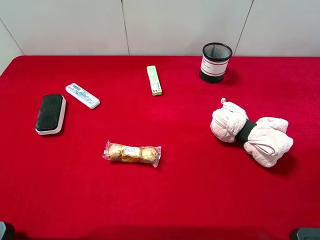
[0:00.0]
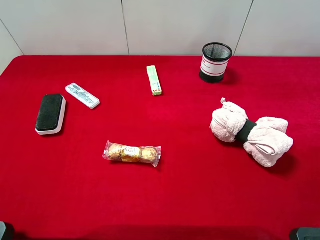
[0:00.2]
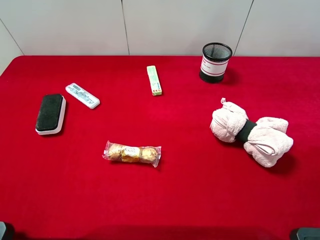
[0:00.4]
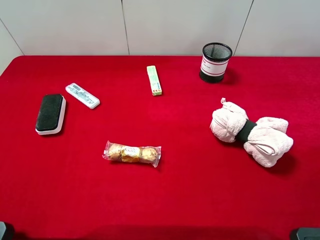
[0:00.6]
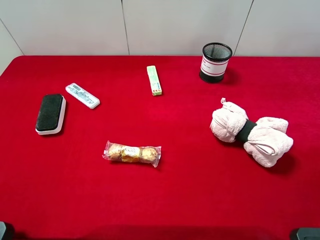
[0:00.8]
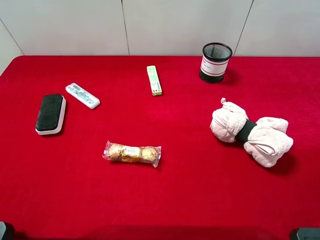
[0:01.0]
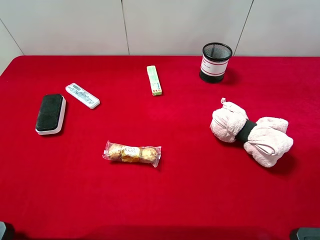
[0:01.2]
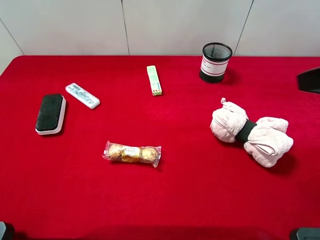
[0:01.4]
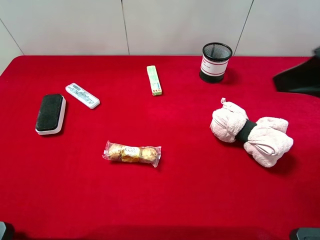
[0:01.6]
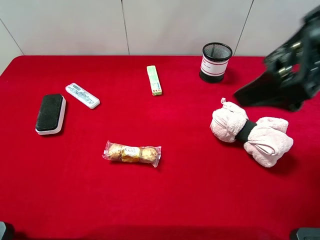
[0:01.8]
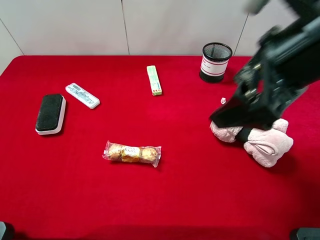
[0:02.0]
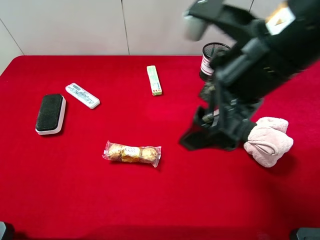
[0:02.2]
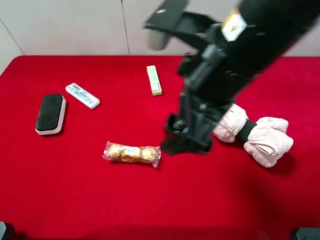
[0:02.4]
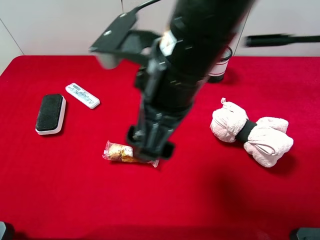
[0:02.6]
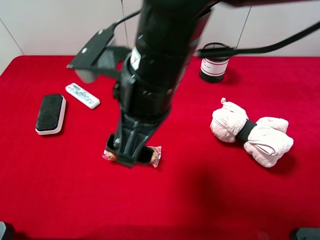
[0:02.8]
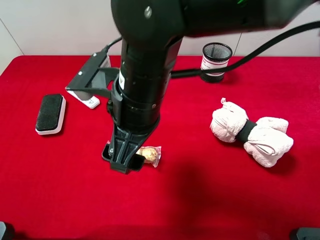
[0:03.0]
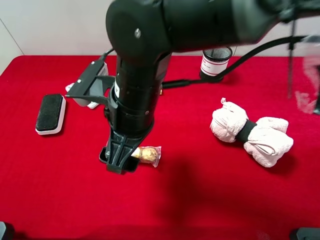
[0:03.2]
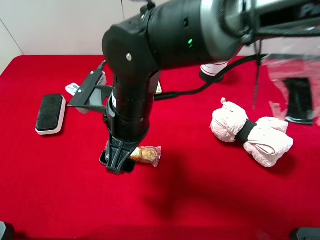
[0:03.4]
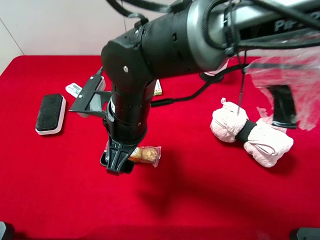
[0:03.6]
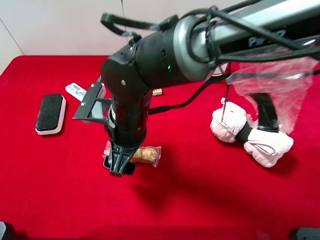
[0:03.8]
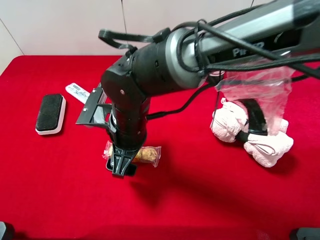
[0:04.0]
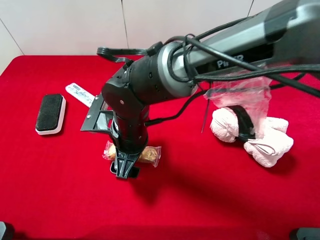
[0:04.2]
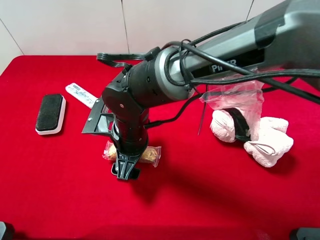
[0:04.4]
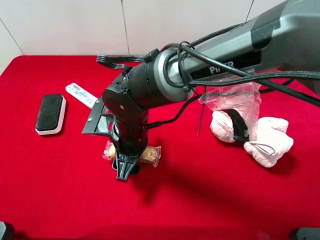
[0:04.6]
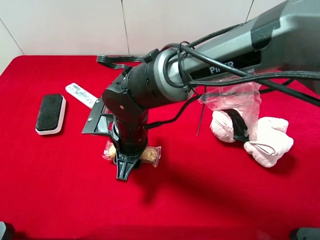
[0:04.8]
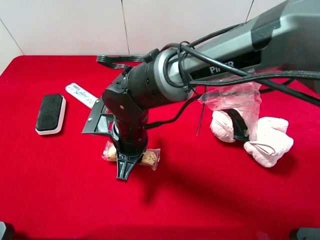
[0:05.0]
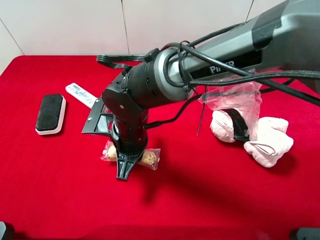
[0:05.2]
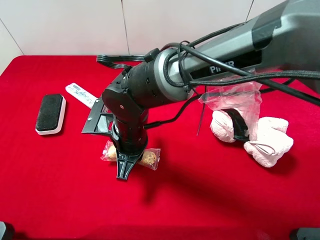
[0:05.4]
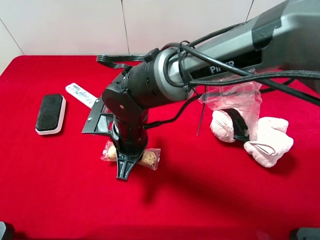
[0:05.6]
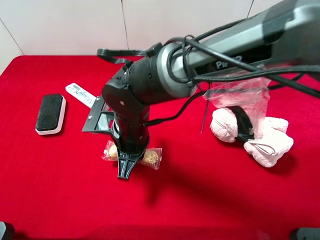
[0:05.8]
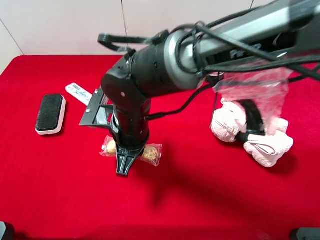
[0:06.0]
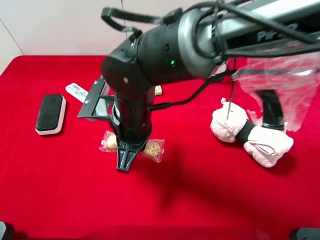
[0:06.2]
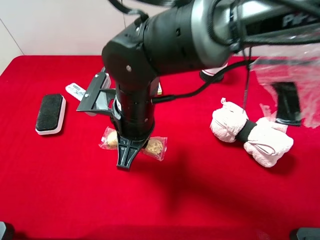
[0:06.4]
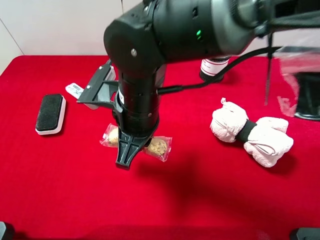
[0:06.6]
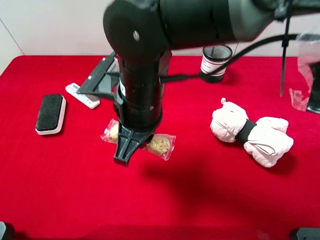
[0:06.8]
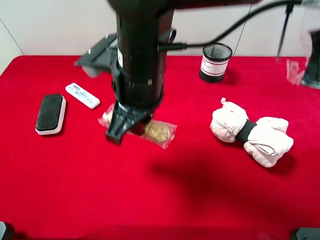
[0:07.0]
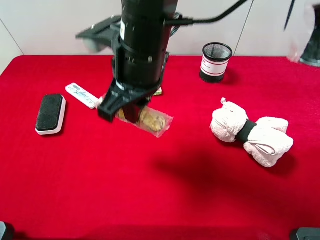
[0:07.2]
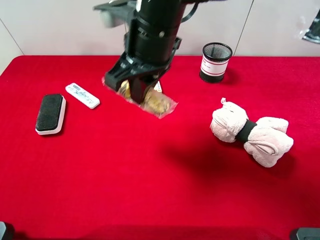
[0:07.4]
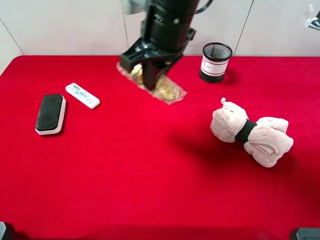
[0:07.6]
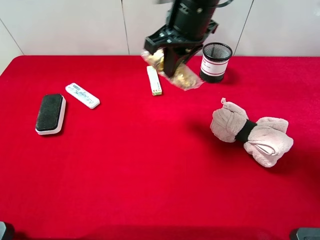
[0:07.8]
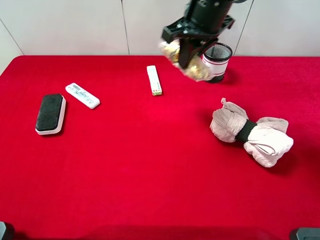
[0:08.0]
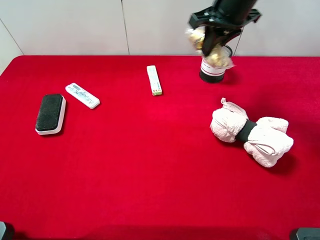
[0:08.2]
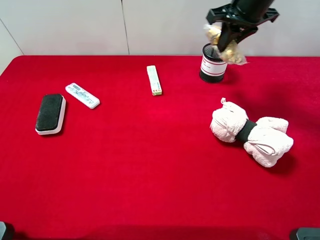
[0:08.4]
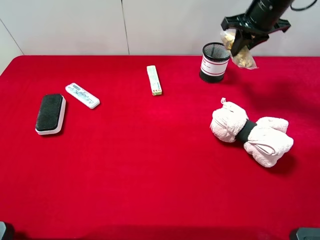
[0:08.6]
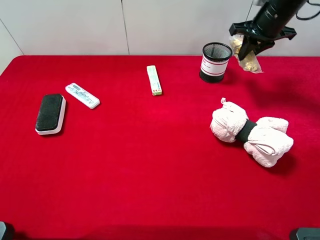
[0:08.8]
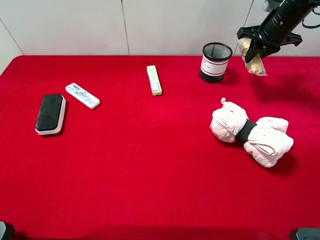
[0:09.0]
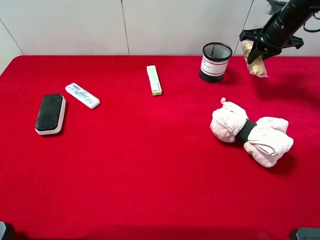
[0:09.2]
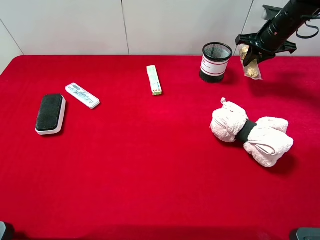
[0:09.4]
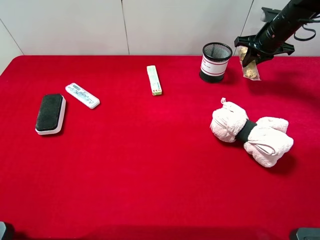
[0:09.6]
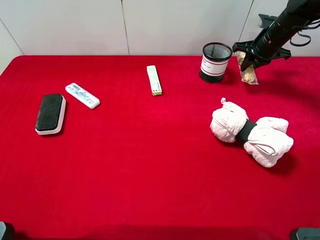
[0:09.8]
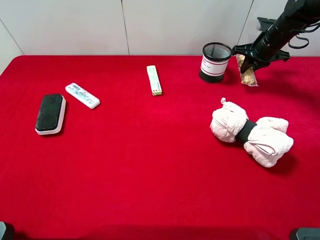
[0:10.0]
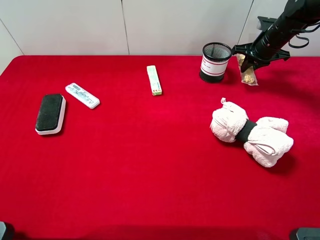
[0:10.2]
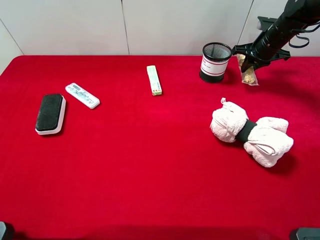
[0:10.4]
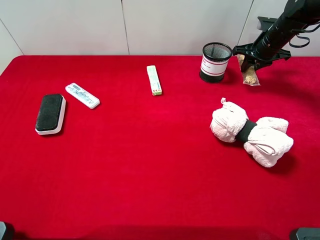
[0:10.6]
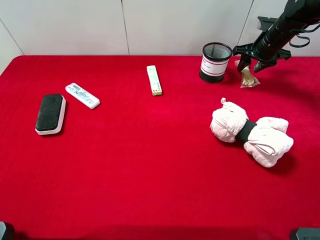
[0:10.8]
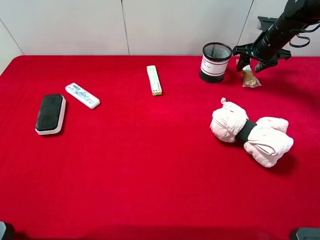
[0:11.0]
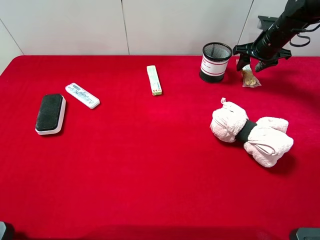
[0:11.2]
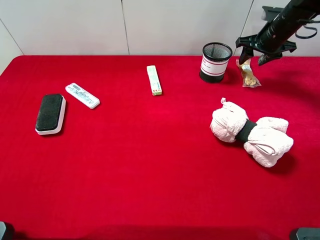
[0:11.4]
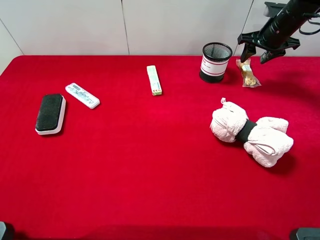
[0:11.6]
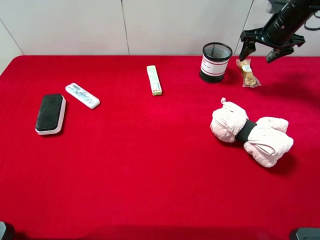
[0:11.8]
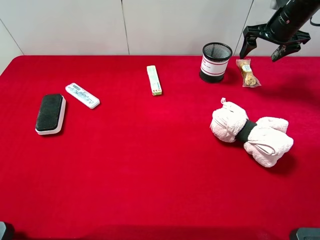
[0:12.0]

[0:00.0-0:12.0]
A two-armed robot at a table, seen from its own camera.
Task of the whole recording: the gripper move the object.
Step, 0:00.0 to 0:05.0: Grasp the chocolate with the right gripper.
Step, 0:05.2 to 0:11.6: Place the chocolate on the table with the right gripper.
0:00.0 to 0:01.6: The right gripper shifts roughly 15 cm forward and to the left.
0:01.6 to 0:03.0: The right gripper travels to the left and downward by about 30 cm.
0:03.0 to 0:04.4: The right gripper shifts about 10 cm downward.
0:04.4 to 0:06.0: The right gripper closes its fingers.
0:06.0 to 0:07.6: The right gripper travels upward, forward and to the right by some 20 cm.
0:07.6 to 0:09.0: The right gripper is displaced to the right and forward by approximately 30 cm.
0:09.0 to 0:10.4: The right gripper travels downward by some 5 cm.
0:10.4 to 0:12.0: The right gripper travels upward by approximately 5 cm, and opens.

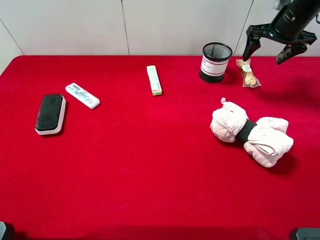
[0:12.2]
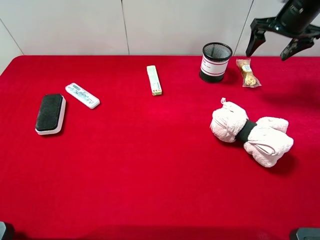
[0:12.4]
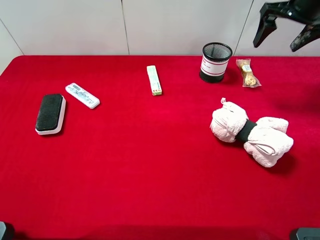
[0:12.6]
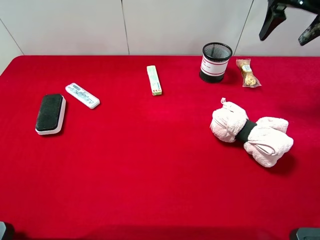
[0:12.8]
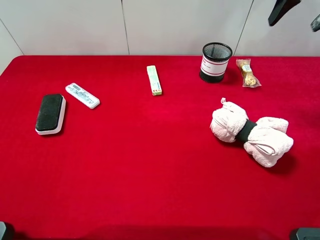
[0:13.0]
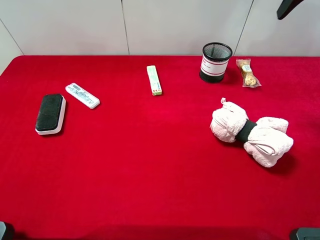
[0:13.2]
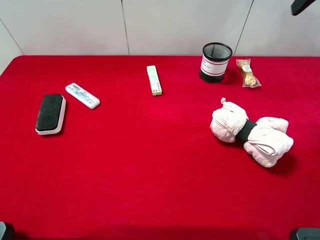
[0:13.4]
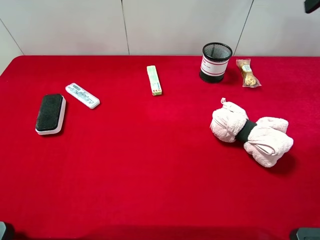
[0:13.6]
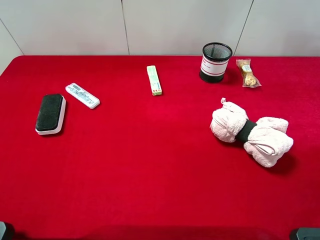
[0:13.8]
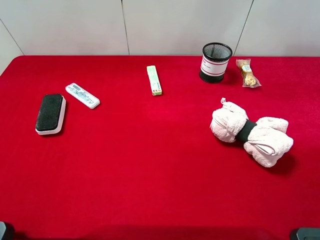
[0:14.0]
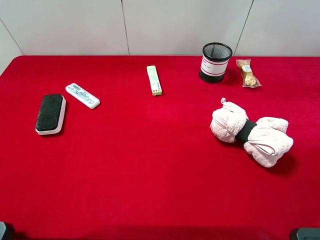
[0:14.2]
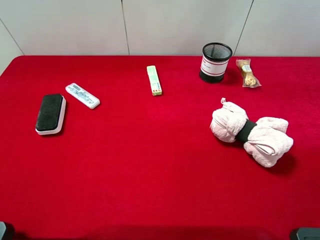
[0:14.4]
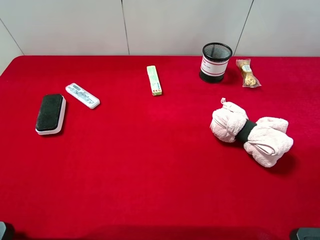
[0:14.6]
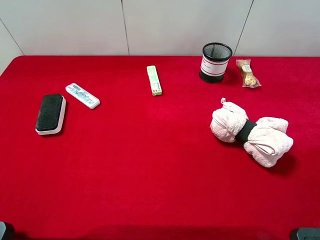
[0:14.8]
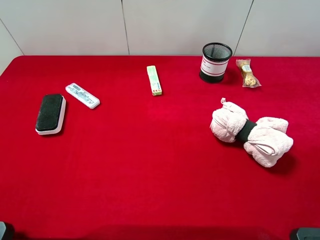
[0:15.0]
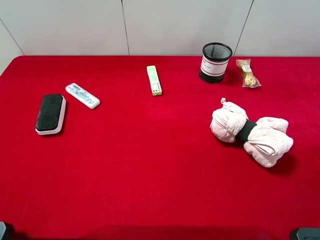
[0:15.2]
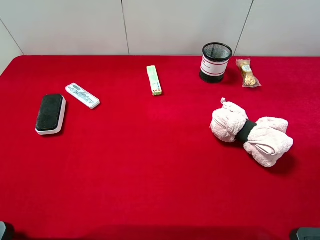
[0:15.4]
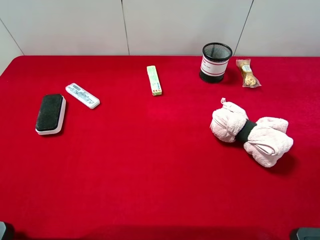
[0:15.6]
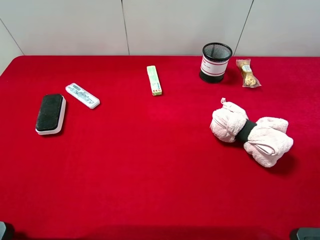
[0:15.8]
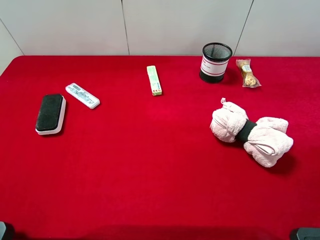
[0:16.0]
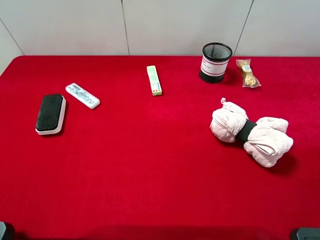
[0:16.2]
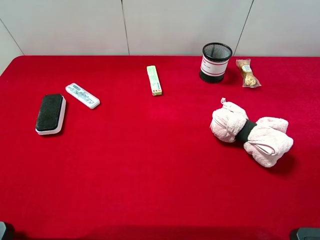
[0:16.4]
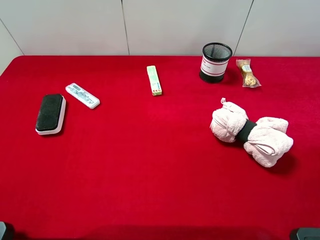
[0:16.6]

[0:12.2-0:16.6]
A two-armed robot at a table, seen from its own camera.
Task of the whole recording: the gripper move the object.
0:12.2 to 0:13.6: The right gripper travels backward and upward by some 25 cm.

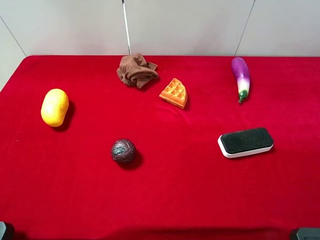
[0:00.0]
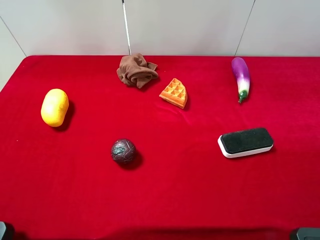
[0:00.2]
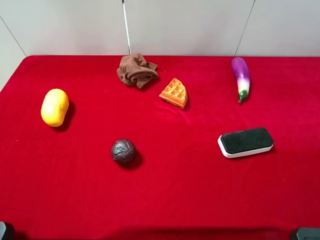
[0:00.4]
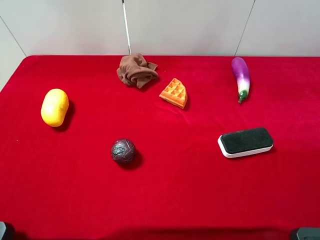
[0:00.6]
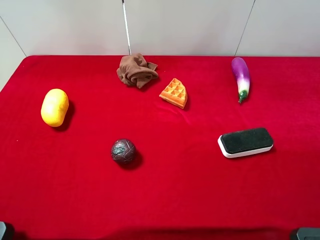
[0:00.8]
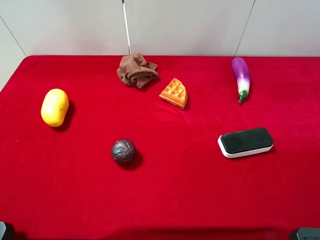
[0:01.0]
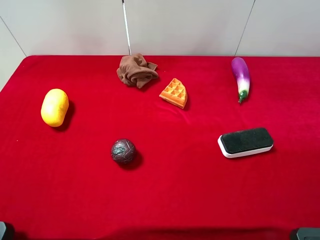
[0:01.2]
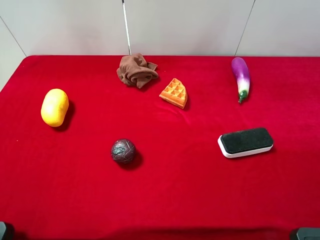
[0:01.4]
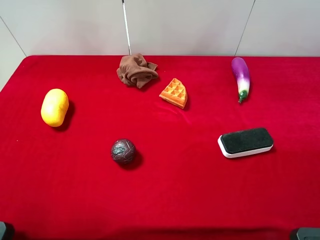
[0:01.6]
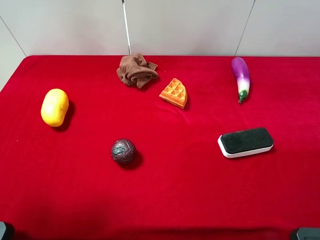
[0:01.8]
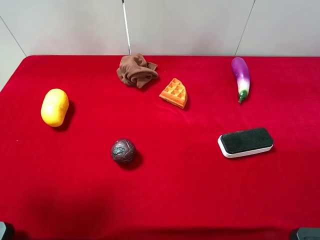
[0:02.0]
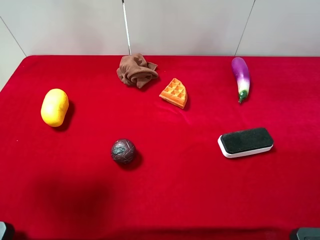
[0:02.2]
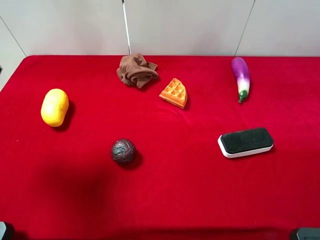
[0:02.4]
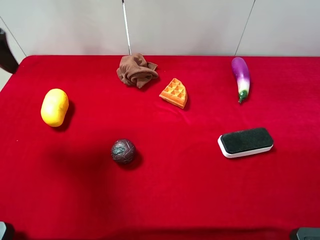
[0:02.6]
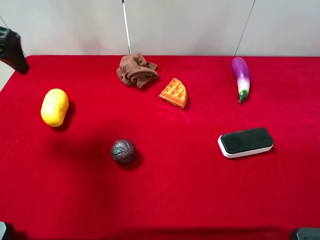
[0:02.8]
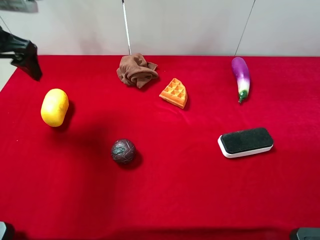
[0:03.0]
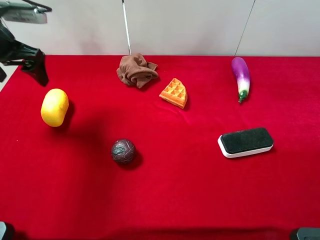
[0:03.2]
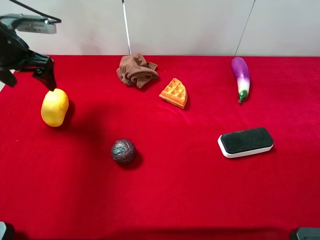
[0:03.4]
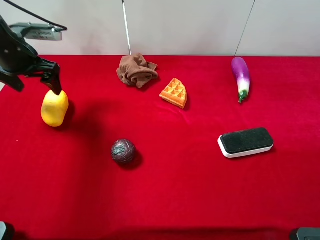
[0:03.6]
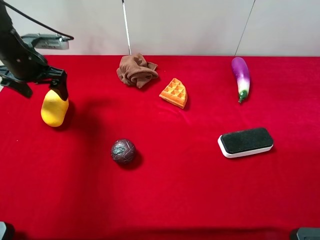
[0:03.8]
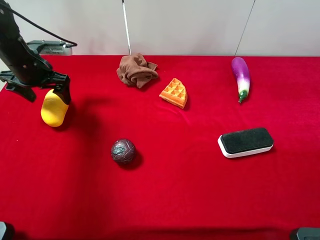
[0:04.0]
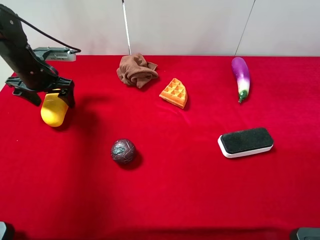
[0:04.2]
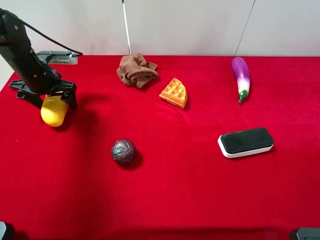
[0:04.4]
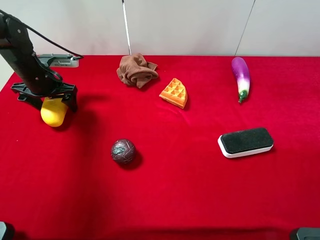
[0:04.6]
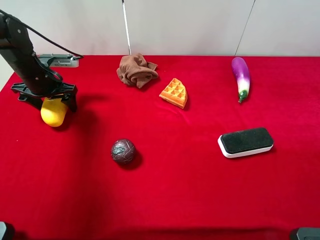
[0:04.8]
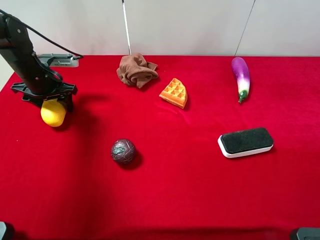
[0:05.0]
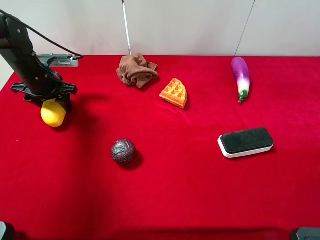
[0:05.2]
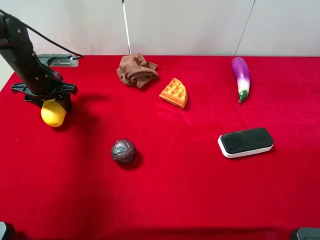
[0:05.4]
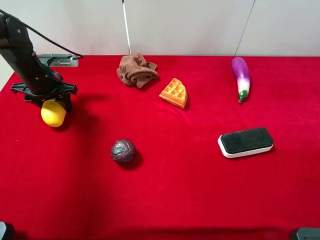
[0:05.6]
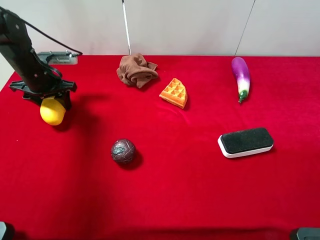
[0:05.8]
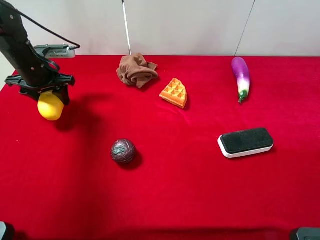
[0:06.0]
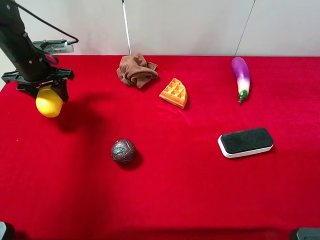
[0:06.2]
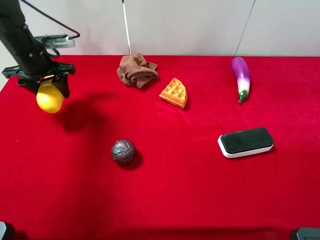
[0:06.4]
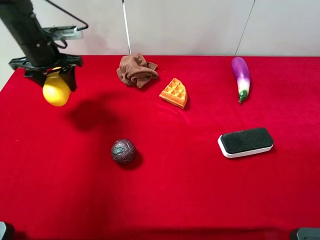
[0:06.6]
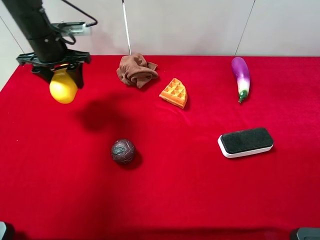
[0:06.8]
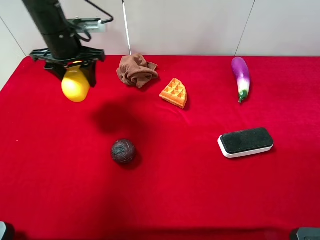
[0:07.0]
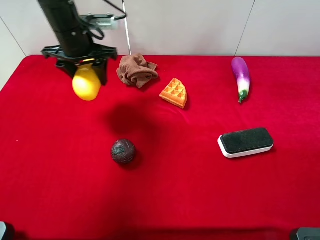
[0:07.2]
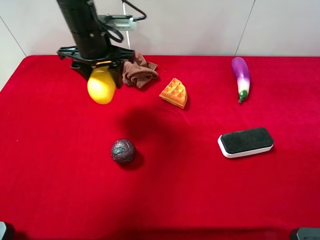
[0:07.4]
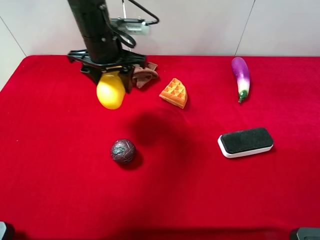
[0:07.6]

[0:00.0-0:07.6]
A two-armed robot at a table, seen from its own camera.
Task of the whole recording: the gripper move the object.
Step, 0:00.0 to 0:05.2: Grasp the mango with the left gripper.
0:01.6 to 0:03.0: The left gripper travels forward by approximately 25 cm.
0:03.0 to 0:04.6: The left gripper moves downward, approximately 15 cm.
0:04.6 to 0:06.0: The left gripper closes up.
0:06.0 to 0:07.6: The left gripper travels to the right by some 20 cm.
